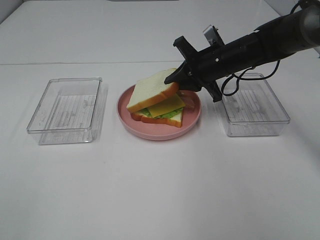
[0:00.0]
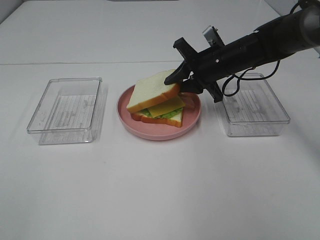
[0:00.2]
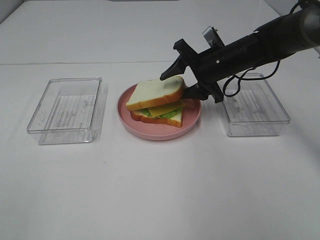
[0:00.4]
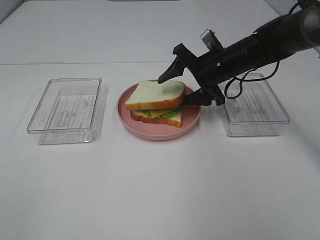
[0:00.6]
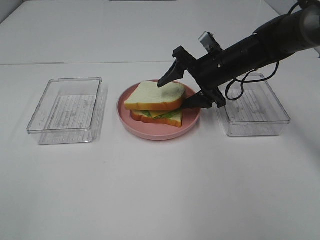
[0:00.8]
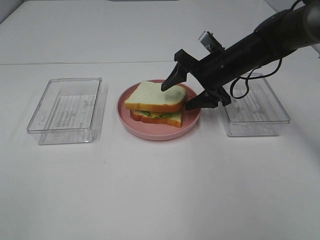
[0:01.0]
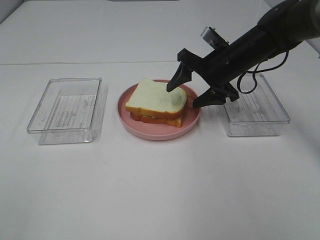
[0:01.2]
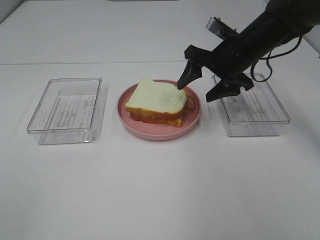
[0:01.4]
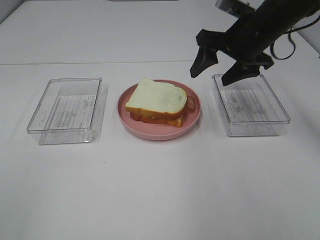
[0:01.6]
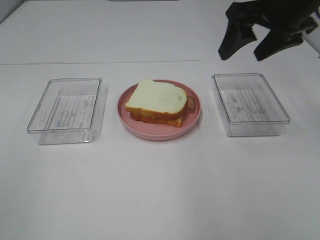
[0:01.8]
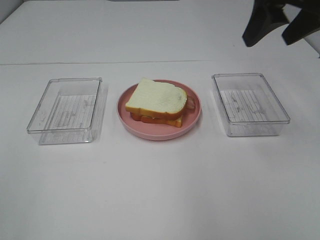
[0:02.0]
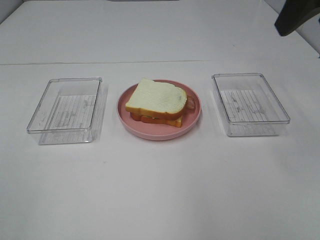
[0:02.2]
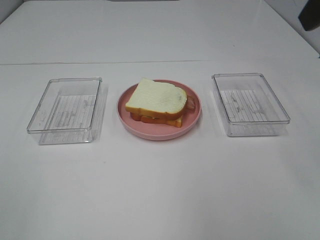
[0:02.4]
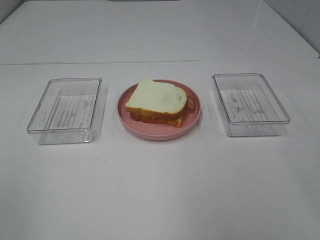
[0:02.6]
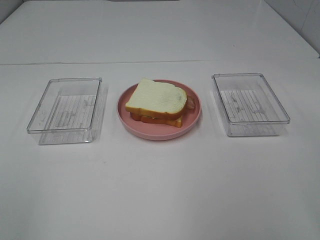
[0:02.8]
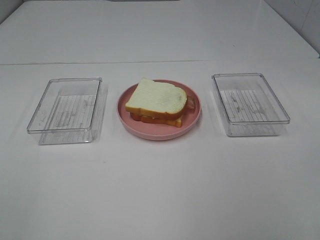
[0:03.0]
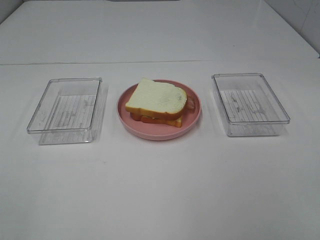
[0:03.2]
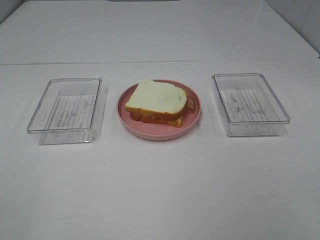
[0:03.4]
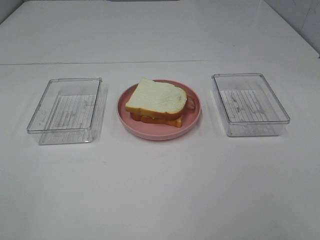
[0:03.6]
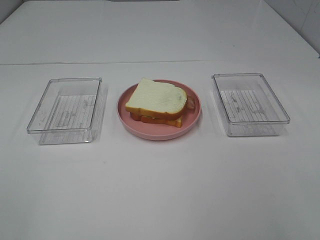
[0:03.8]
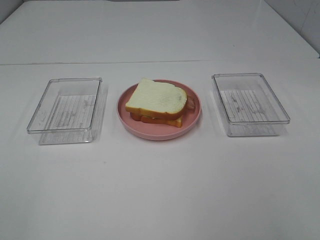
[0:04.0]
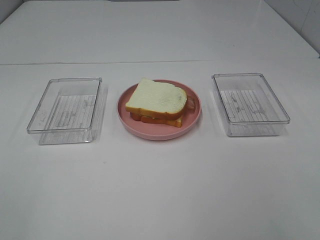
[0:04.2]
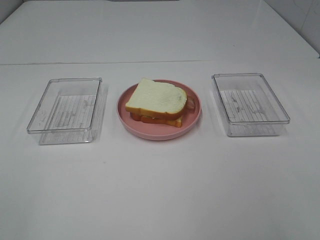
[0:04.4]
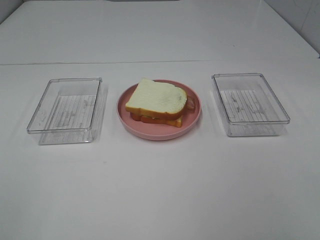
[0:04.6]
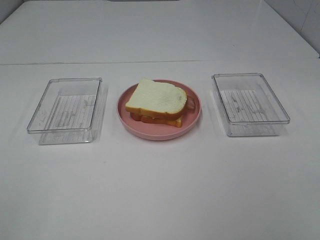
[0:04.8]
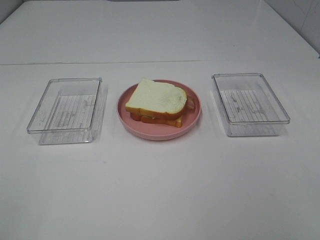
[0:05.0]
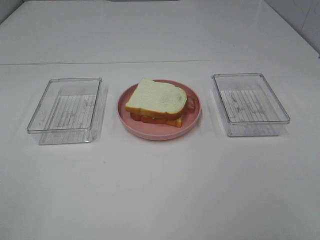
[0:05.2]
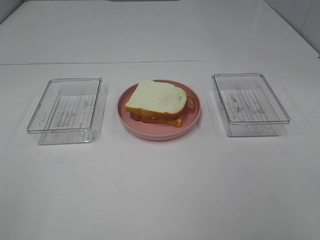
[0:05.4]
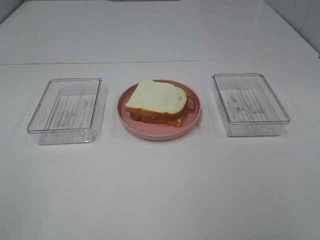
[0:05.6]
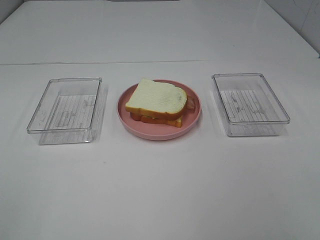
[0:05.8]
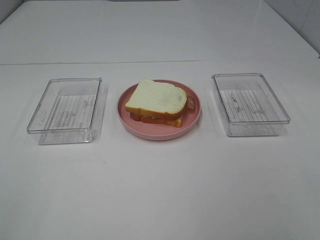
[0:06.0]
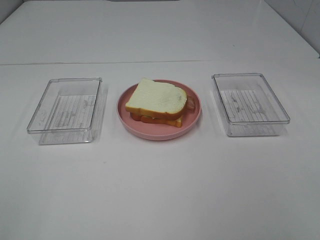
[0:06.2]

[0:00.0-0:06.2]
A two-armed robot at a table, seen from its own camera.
Task of the whole recording: Make sandwiches.
0:00.0 to 0:01.6: The right gripper moves upward, roughly 10 cm, and opens its fingers.
0:01.6 to 0:03.2: The right gripper is displaced backward by approximately 35 cm.
0:04.6 to 0:06.2: Neither gripper changes place.

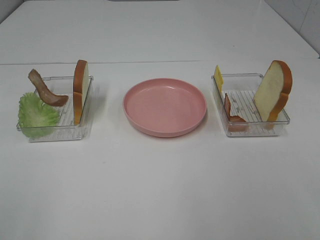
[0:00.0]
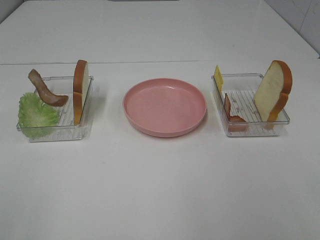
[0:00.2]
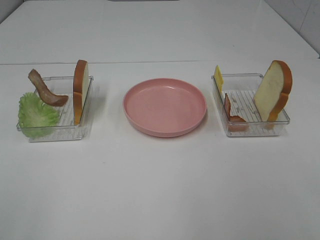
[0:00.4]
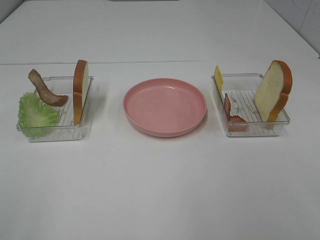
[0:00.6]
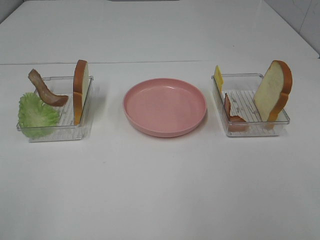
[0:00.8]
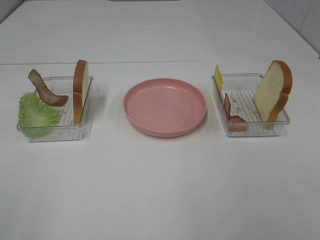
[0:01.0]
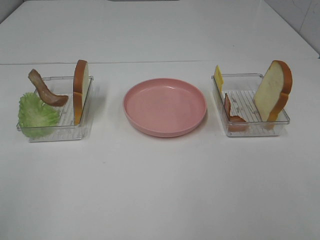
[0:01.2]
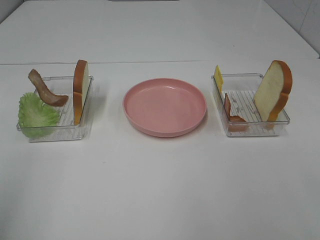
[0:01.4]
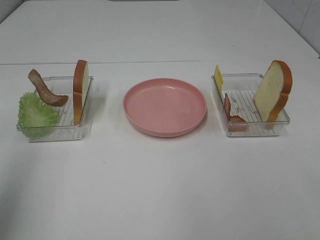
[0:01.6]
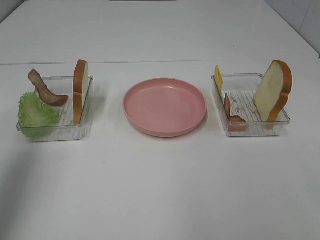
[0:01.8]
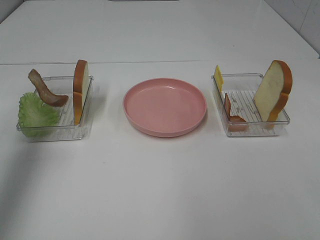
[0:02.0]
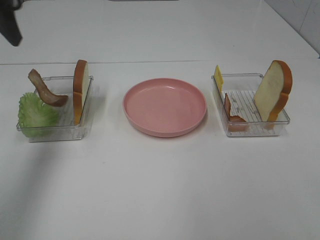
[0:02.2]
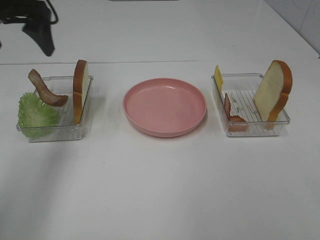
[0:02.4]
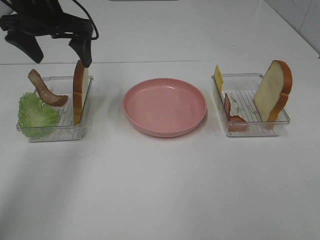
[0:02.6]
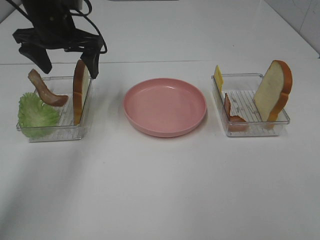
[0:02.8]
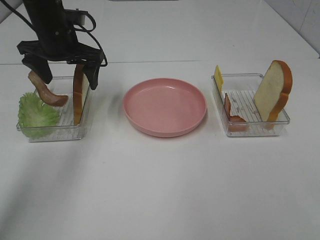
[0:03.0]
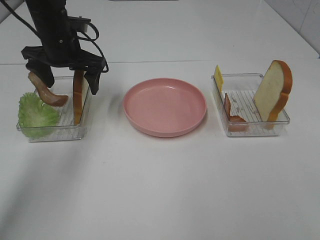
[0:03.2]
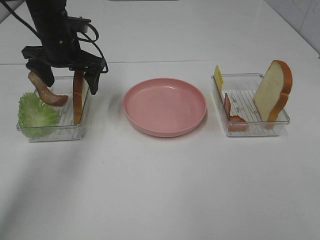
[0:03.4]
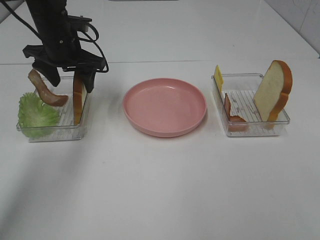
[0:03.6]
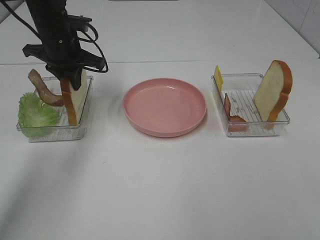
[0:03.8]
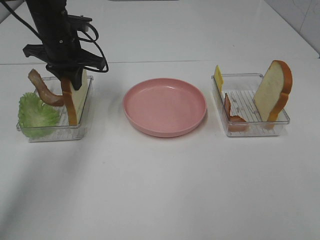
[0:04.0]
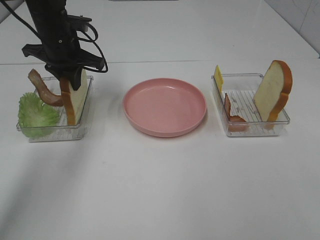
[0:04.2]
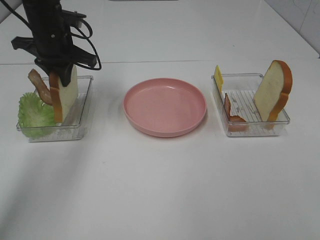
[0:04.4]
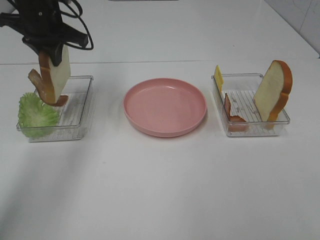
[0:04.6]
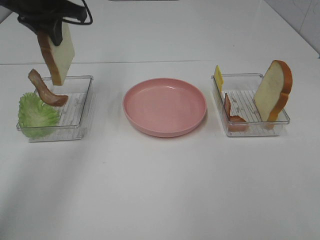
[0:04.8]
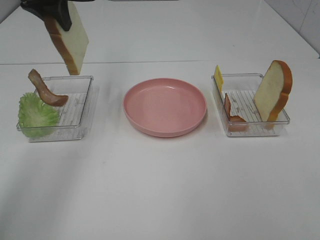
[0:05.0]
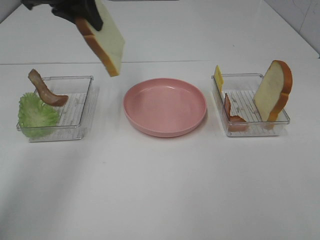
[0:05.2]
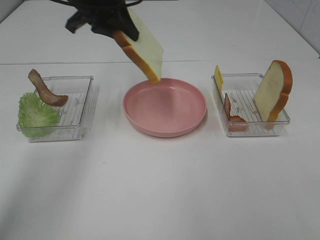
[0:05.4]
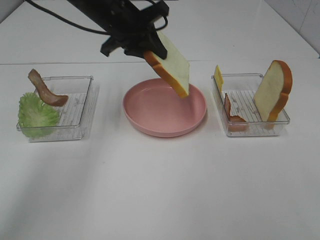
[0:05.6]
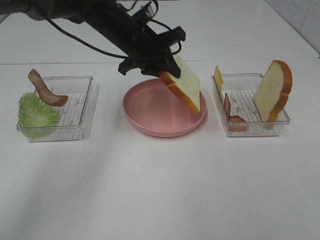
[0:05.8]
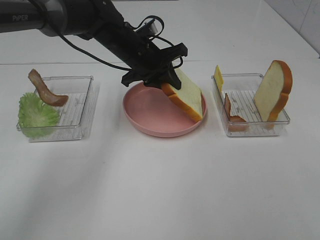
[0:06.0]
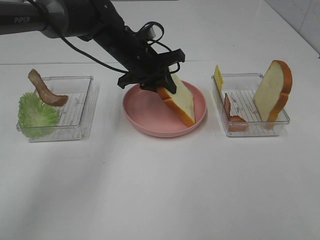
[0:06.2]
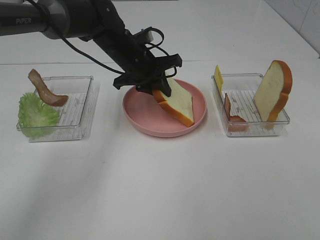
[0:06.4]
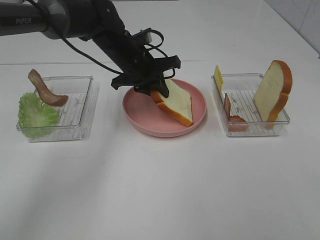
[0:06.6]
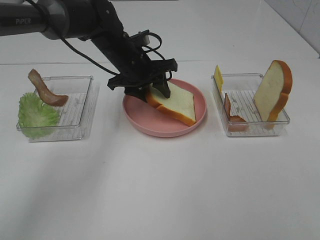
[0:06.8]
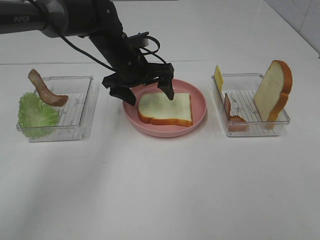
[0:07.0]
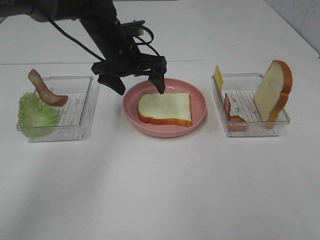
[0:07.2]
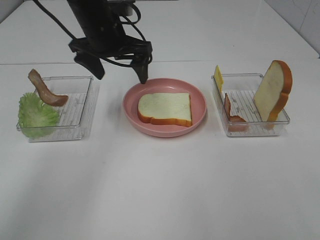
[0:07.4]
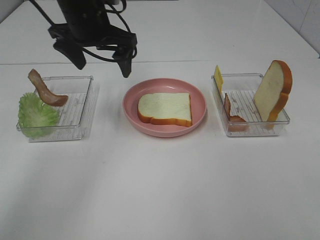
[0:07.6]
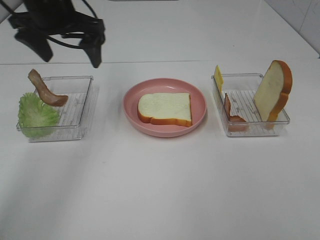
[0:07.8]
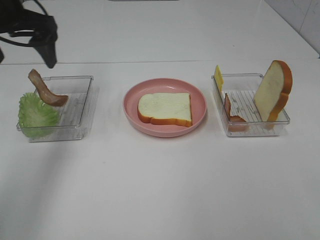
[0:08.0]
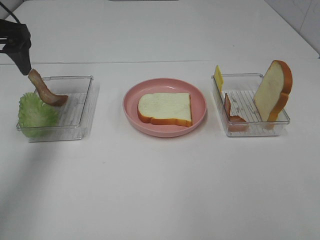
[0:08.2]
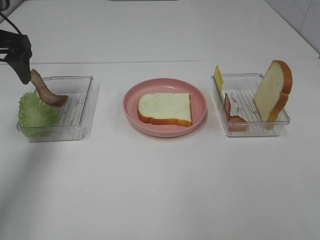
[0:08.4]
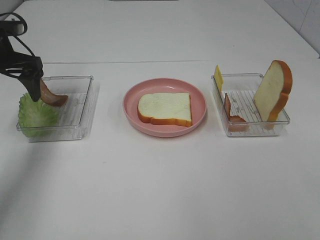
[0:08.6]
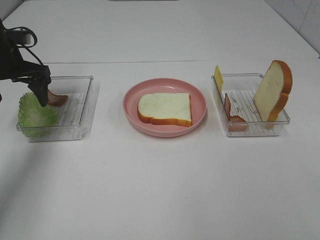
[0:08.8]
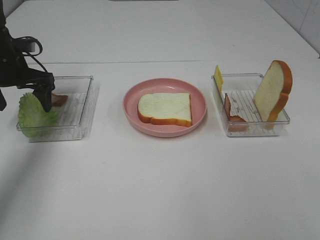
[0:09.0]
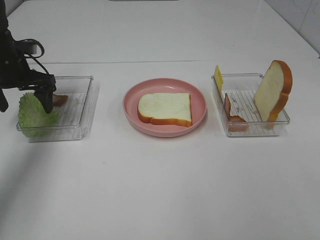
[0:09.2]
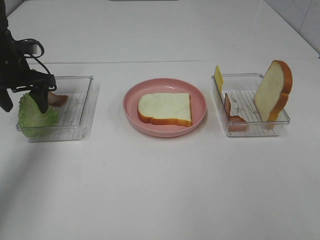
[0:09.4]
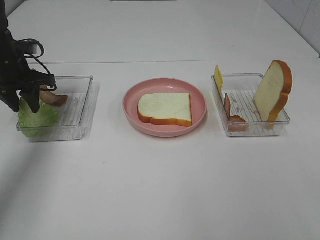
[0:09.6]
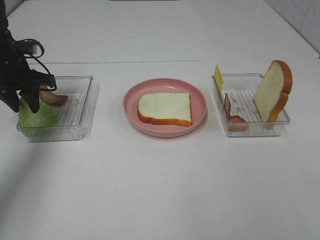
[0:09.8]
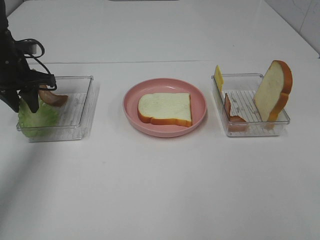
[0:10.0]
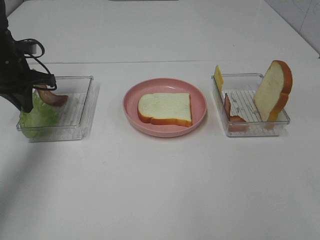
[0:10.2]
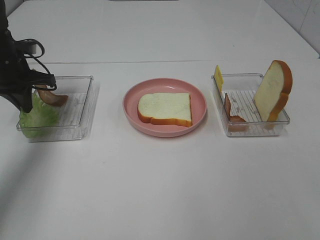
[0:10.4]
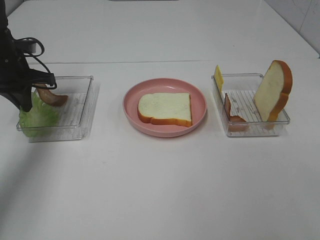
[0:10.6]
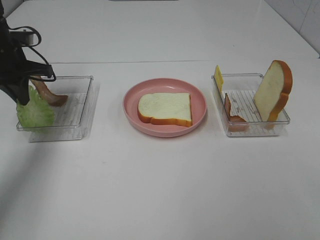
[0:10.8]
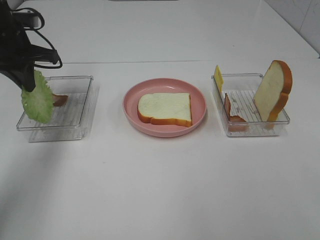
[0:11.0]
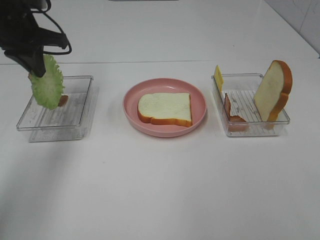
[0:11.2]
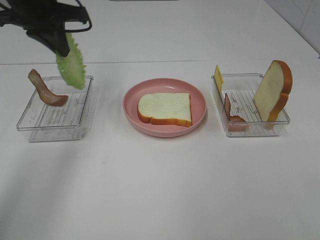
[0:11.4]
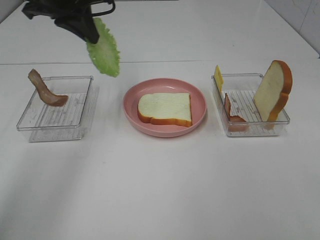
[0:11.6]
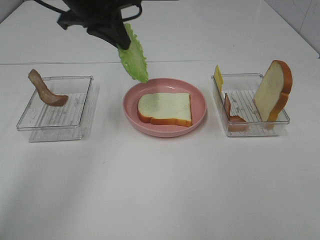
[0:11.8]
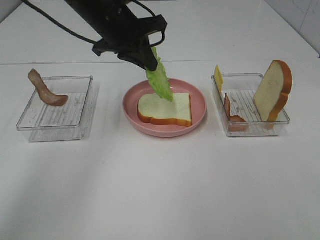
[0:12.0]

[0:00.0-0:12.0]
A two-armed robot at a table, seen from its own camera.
Task of the whole recording: Make sandwiches.
Step, 0:00.0 to 0:04.0: Left hand:grab the bread slice.
Step, 0:04.2 to 0:07.0: Left hand:place the bread slice on the plate.
Step, 0:07.2 to 0:10.6: Left hand:grab the lettuce slice.
0:00.0 to 0:01.6: The left gripper travels forward and upward by some 15 cm.
0:01.6 to 0:03.0: The left gripper travels forward, downward and to the right by about 35 cm.
0:03.0 to 0:04.4: The left gripper closes up.
0:04.4 to 0:06.0: The left gripper moves to the right, some 15 cm, and goes upward and returns, about 10 cm each way.
0:06.0 to 0:07.6: The left gripper travels upward and to the left by approximately 10 cm, and opens.
0:07.6 to 0:09.0: The left gripper is displaced to the left and downward by about 20 cm.
0:09.0 to 0:10.4: The left gripper closes its fingers.
0:10.4 to 0:12.0: The left gripper is displaced to the right and upward by about 20 cm.

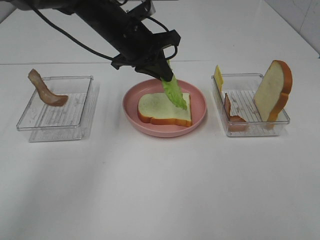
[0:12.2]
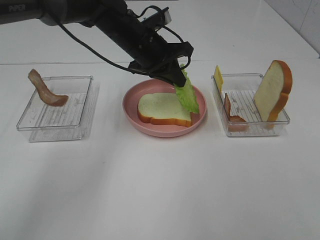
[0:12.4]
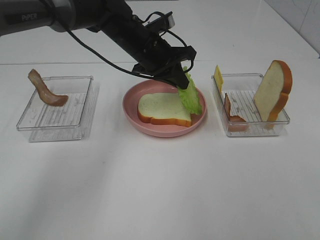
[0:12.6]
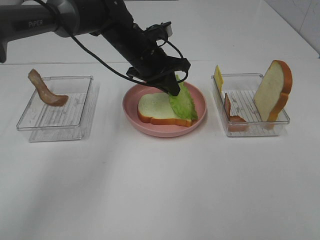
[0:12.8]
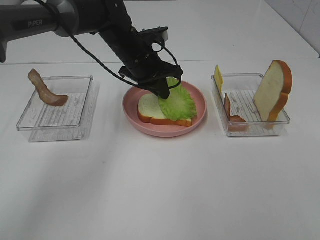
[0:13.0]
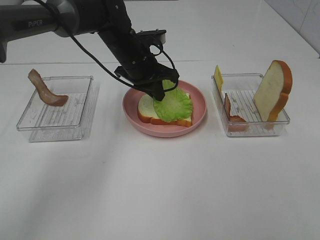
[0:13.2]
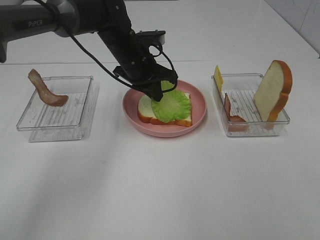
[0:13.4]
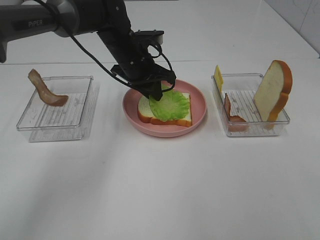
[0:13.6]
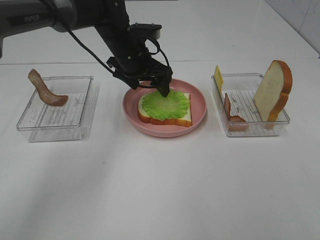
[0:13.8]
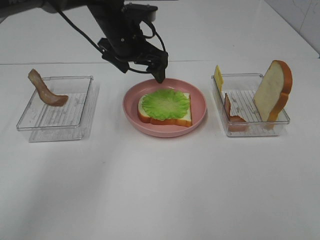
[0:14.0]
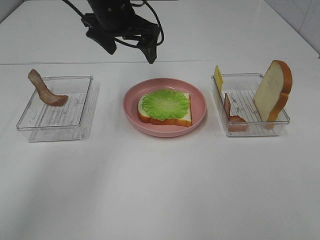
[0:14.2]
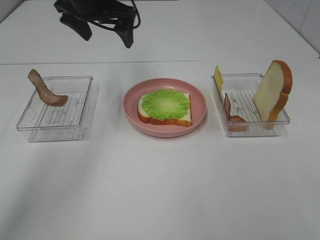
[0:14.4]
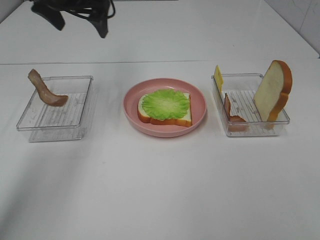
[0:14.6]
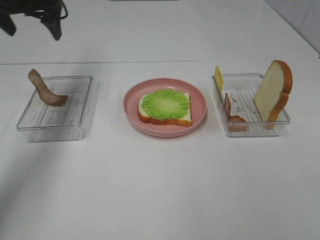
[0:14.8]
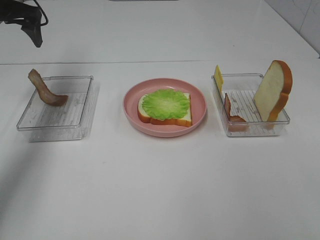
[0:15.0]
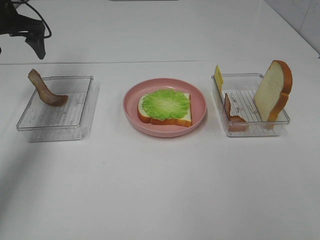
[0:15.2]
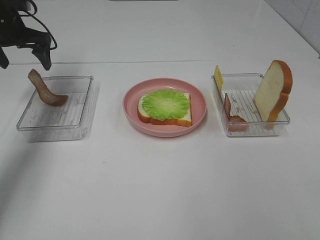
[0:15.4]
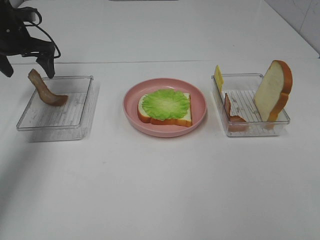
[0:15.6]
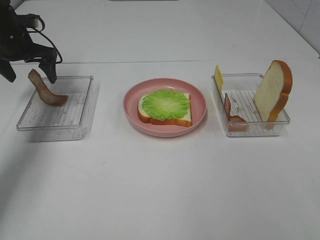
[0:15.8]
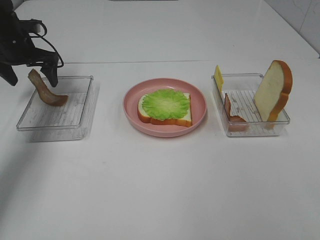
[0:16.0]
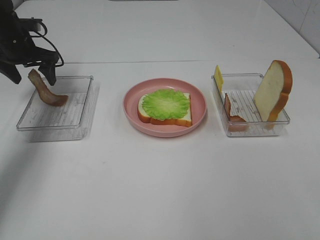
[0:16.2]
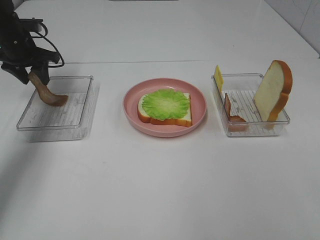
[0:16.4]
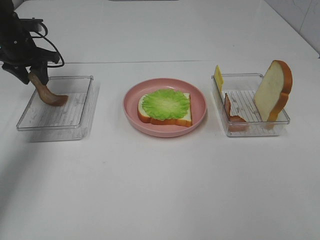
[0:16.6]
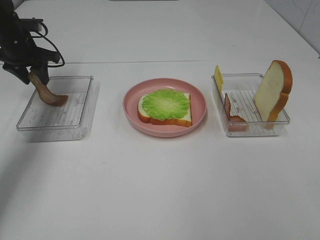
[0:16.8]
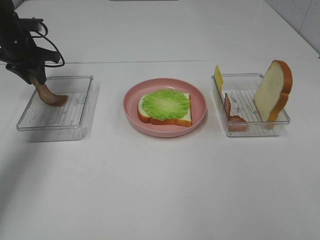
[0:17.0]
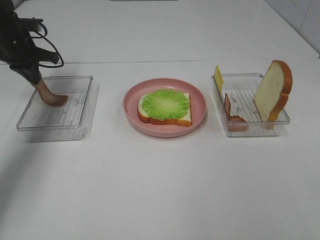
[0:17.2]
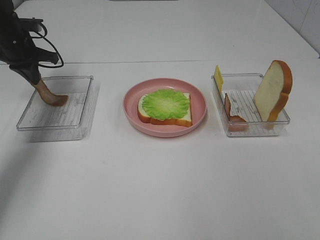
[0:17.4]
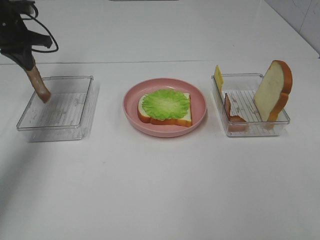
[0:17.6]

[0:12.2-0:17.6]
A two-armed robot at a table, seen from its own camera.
Task of the whole recording: Make sandwiches.
Step, 0:12.2 to 0:13.8: Left hand:place the lettuce slice on the bread slice.
Step, 0:14.0 to 0:17.4: Left hand:grab the bacon.
0:12.2 to 0:13.6: The left gripper heads downward, covering approximately 5 cm.
0:13.6 to 0:15.0: The left gripper moves to the left and upward, some 30 cm, and opens up.
0:15.0 to 0:16.2: The left gripper travels downward by about 10 cm.
0:16.2 to 0:17.6: The left gripper closes its fingers.
